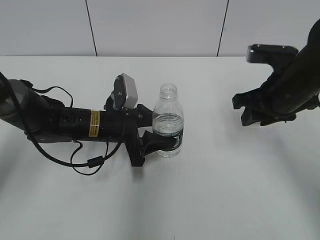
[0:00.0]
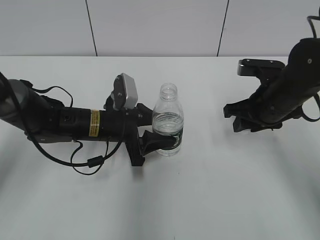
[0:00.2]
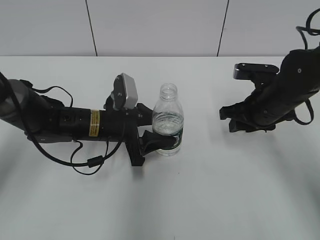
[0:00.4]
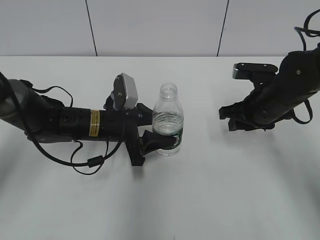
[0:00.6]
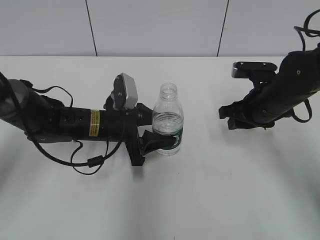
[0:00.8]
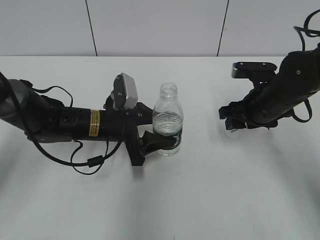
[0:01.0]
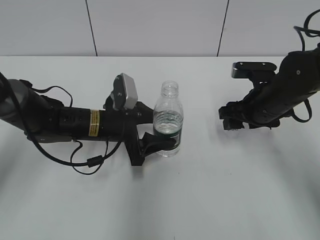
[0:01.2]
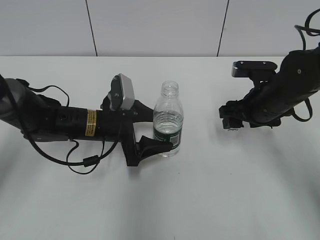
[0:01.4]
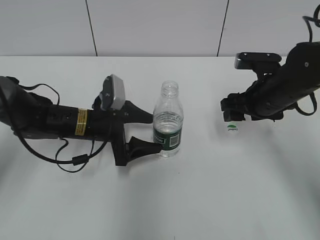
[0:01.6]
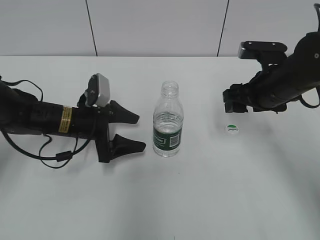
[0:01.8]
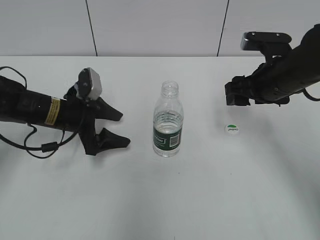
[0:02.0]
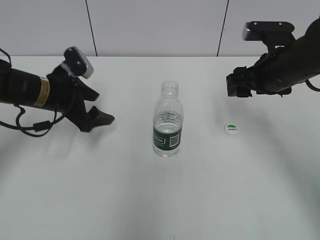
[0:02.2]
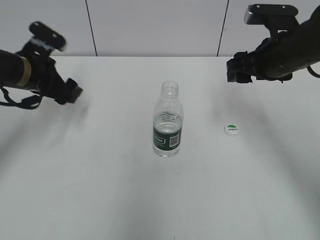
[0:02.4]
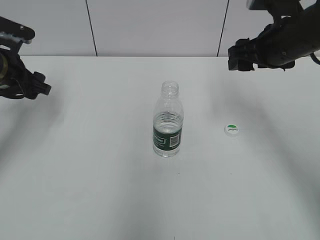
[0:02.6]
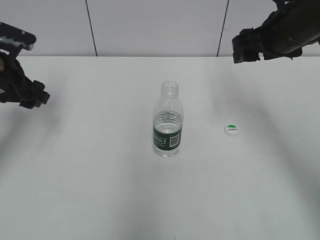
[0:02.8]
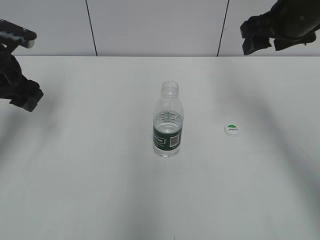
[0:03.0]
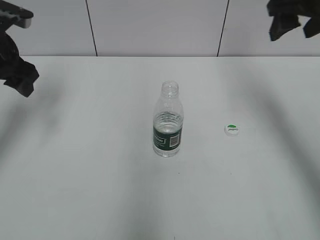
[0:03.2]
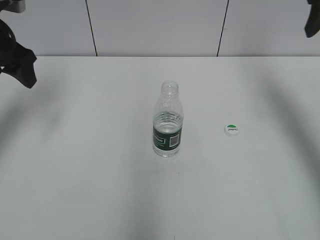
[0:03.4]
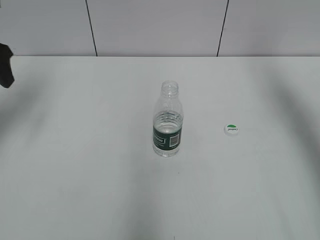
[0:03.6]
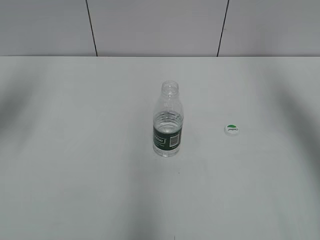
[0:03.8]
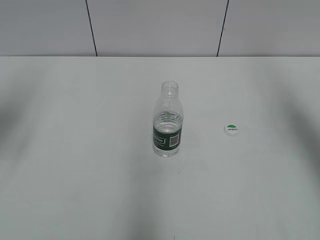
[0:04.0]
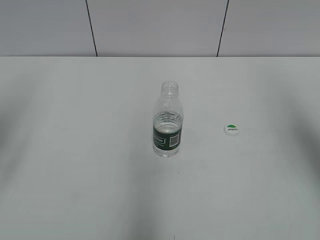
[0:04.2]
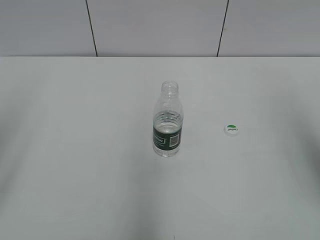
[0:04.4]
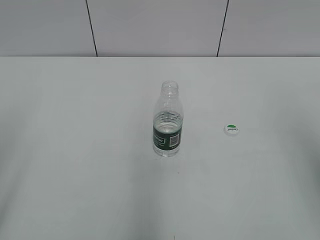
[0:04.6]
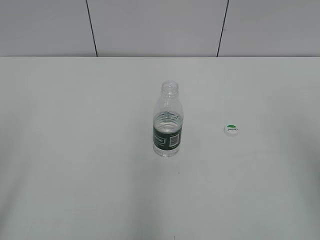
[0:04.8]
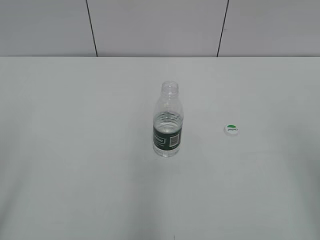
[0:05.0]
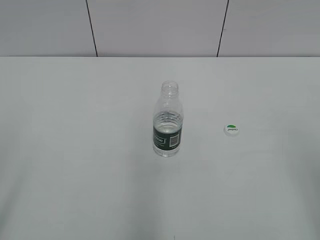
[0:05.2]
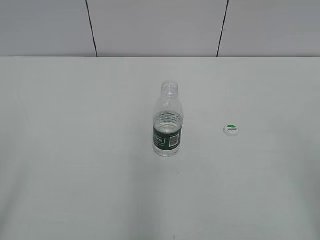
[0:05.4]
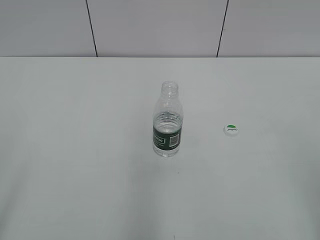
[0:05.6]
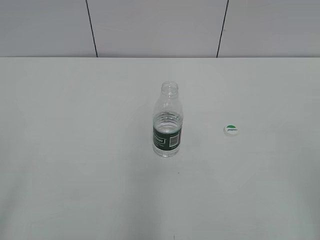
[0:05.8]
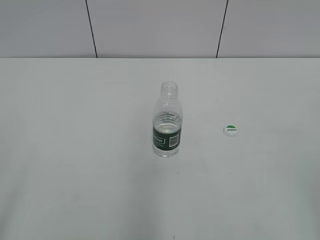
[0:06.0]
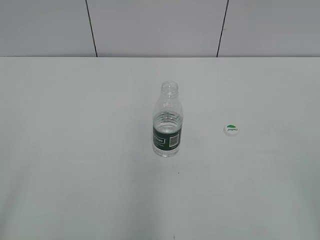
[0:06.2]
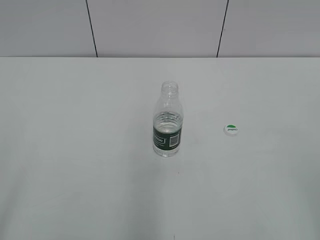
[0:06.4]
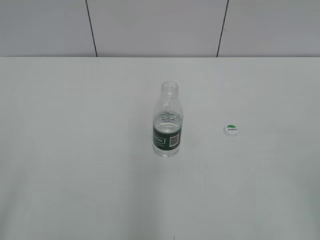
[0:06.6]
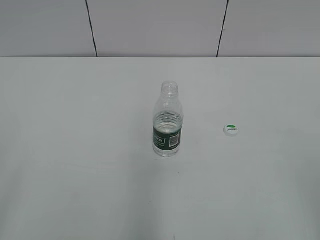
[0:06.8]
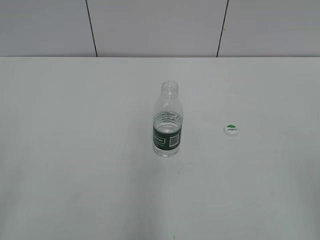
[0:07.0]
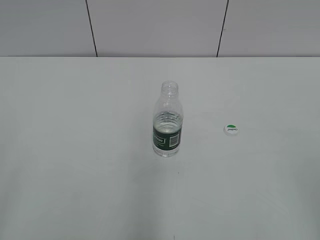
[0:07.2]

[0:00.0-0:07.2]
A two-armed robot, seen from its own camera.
Step, 0:01.0 to 0:01.8: Place the bottle on the table with the left gripper.
0:00.0 to 0:01.4: The right gripper is displaced downward by roughly 5 cm, and opens its fingers. The left gripper opens up.
0:01.4 to 0:02.8: The right gripper shifts about 15 cm upward. The left gripper travels to the left and upward by approximately 20 cm.
0:02.8 to 0:04.4: The left gripper goes some 25 cm backward and upward. Meanwhile the right gripper goes some 20 cm backward, to the right and upward.
0:04.4 to 0:05.8: The right gripper heads backward and downward, covering approximately 20 cm.

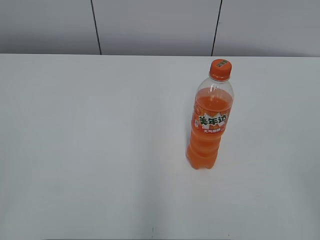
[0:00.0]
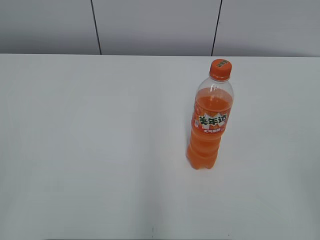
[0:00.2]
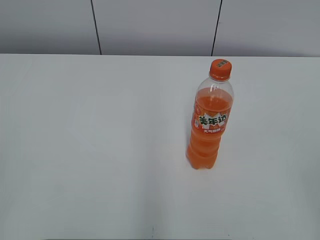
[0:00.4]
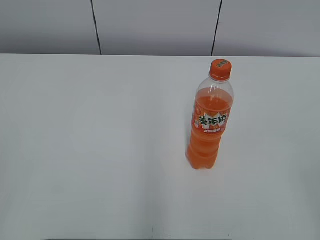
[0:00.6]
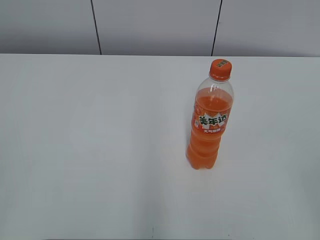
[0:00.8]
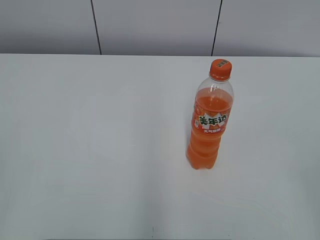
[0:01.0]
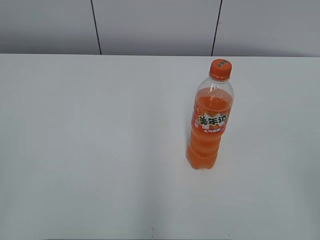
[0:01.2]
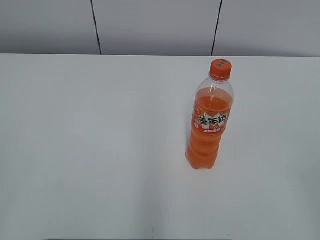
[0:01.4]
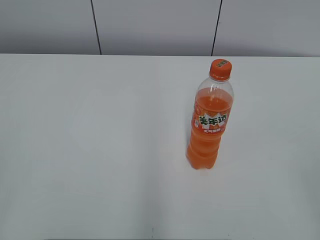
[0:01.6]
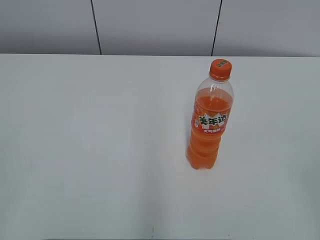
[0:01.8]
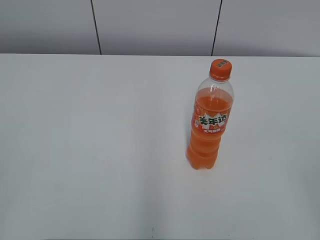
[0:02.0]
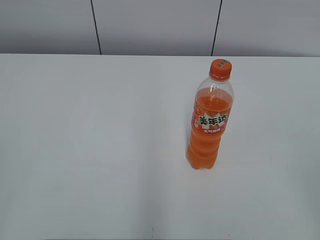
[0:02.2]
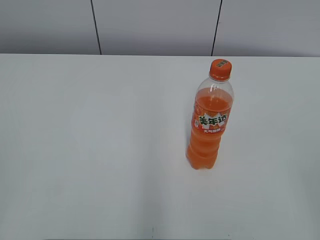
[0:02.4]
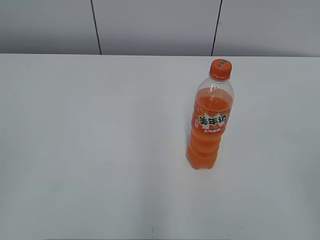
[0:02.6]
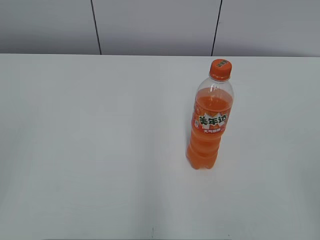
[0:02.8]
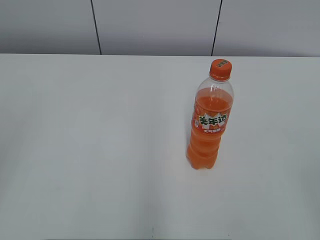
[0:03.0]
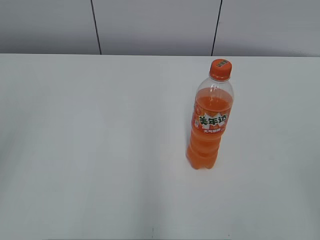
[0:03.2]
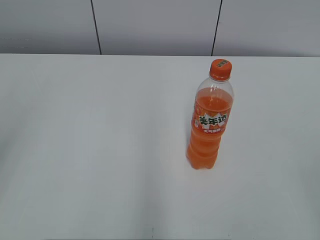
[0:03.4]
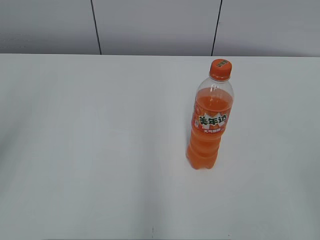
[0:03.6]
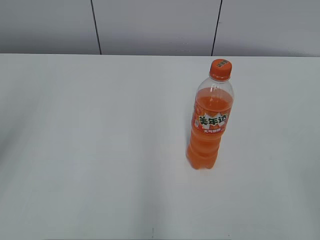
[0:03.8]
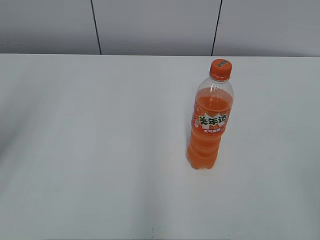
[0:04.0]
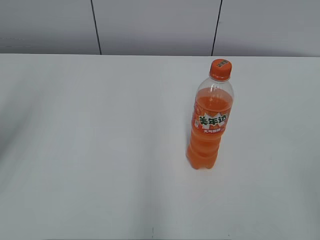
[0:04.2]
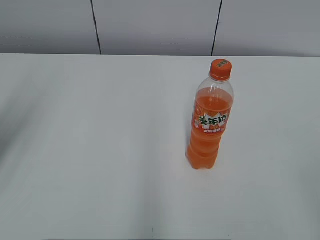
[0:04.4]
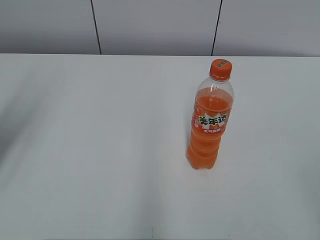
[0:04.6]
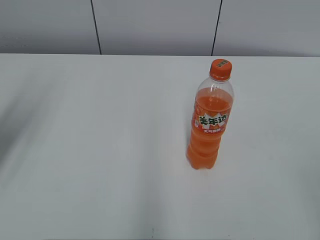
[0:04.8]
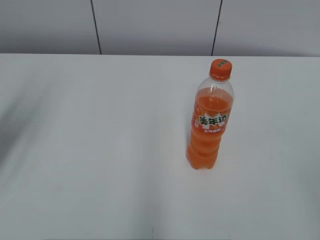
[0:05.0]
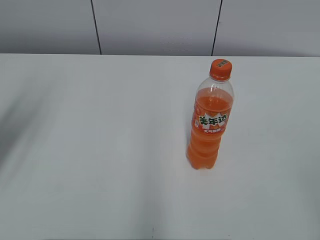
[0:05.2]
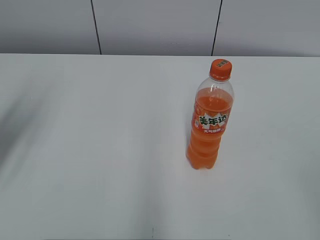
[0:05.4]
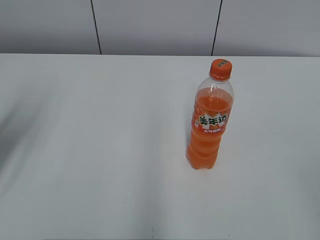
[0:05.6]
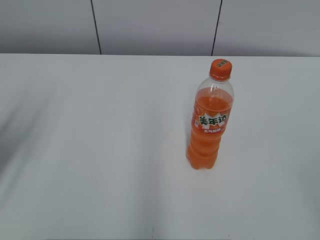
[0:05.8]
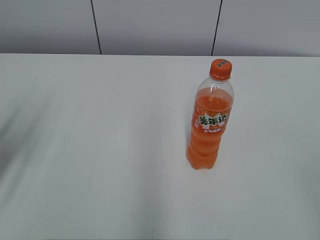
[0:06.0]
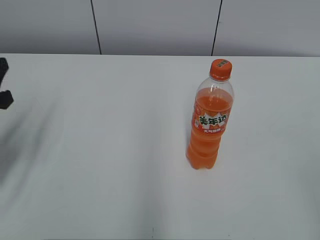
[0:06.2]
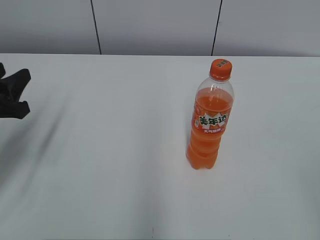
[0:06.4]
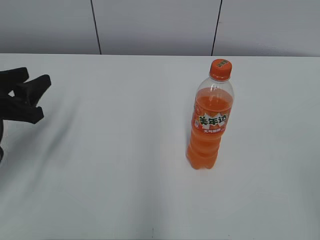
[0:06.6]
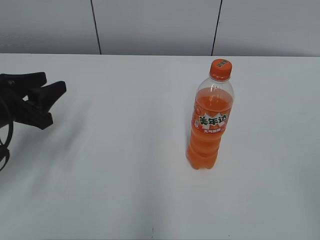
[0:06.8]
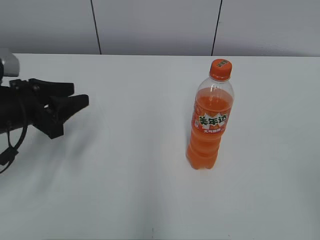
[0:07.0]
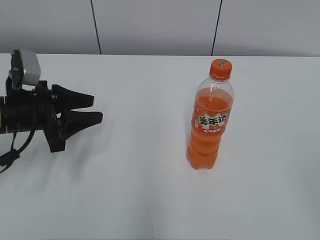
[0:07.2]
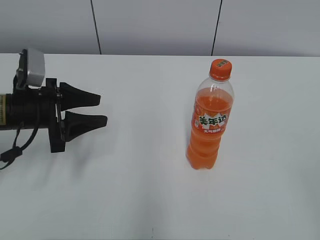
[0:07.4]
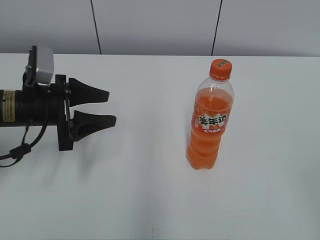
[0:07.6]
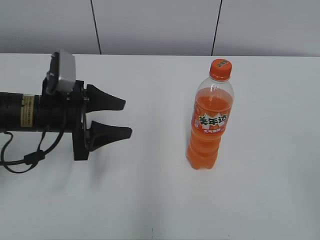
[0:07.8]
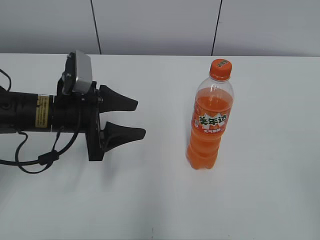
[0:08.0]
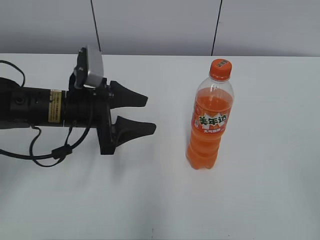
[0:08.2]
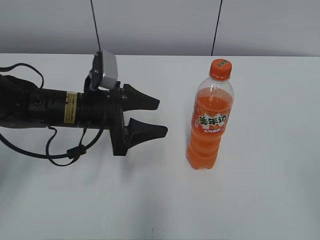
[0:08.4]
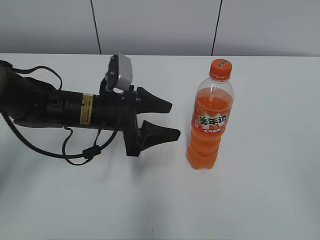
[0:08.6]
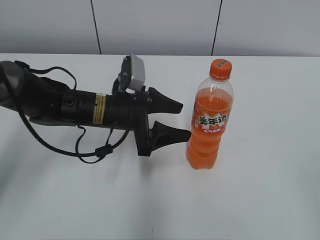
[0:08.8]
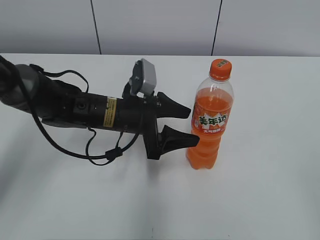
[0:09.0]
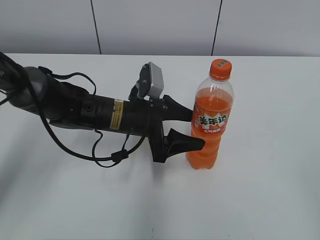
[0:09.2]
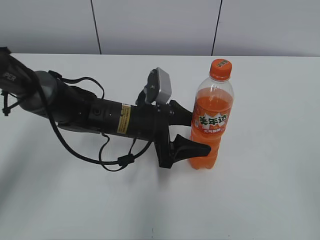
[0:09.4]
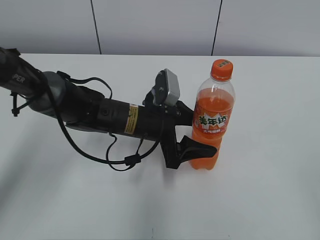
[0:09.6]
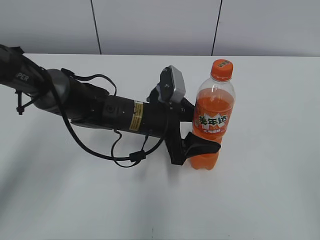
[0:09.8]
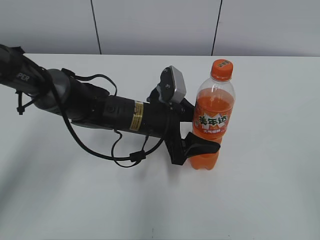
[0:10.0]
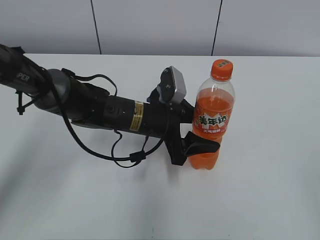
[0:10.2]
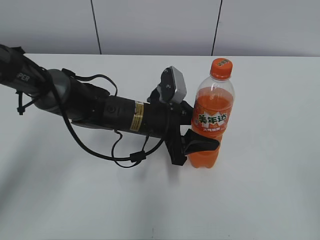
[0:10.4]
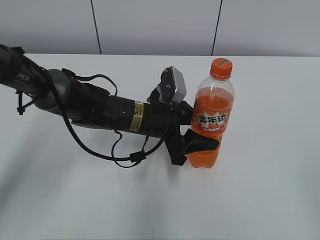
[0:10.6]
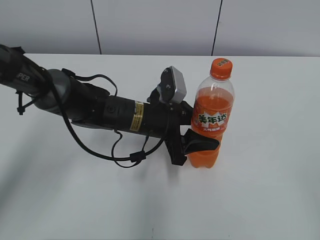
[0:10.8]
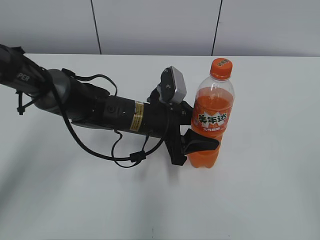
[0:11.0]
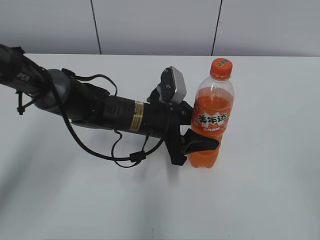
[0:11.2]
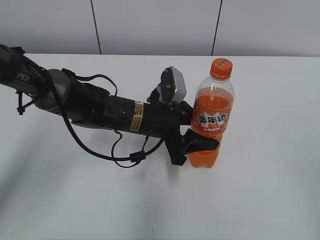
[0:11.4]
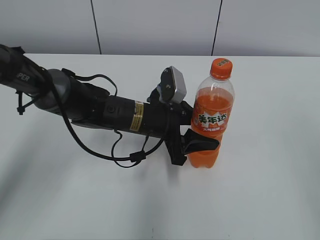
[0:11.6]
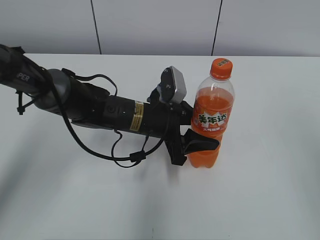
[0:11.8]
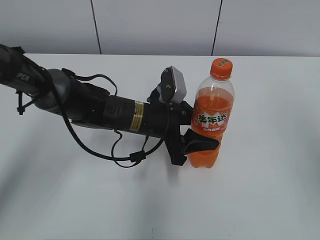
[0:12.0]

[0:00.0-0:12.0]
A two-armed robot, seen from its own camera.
Step, 0:00.0 to 0:10.6: Grab the Mirinda with the left hand.
0:06.0 to 0:07.6: The left gripper shifts some 15 cm to the right, forward and downward.
0:07.6 to 0:09.0: The left gripper travels to the right by about 15 cm.
0:09.0 to 0:10.4: The grippers stay close to where they were, moving slightly.

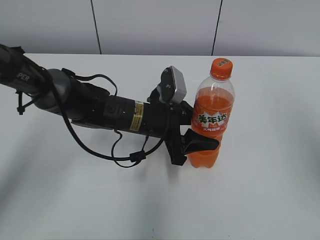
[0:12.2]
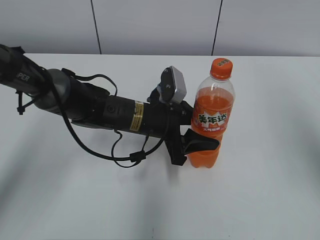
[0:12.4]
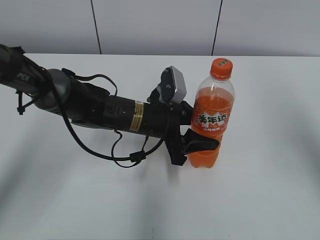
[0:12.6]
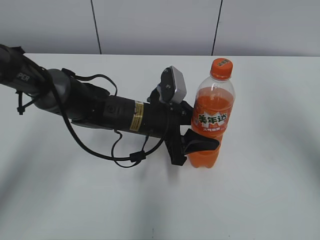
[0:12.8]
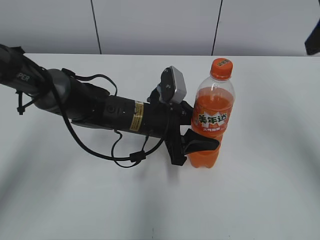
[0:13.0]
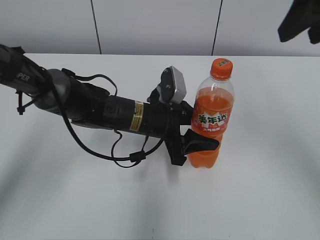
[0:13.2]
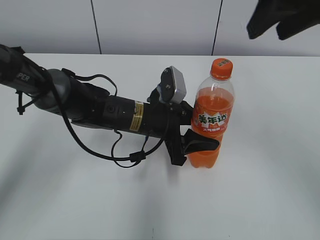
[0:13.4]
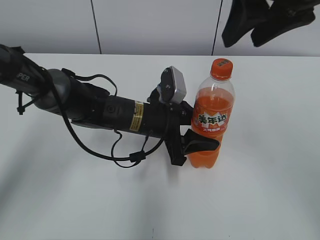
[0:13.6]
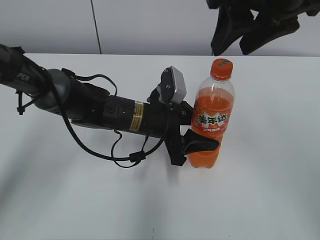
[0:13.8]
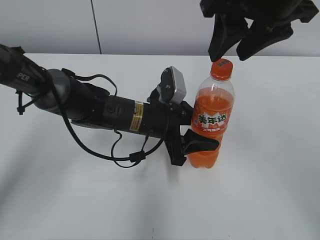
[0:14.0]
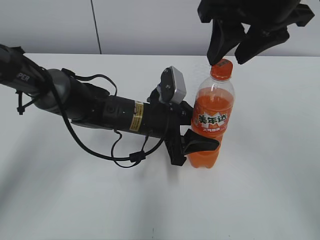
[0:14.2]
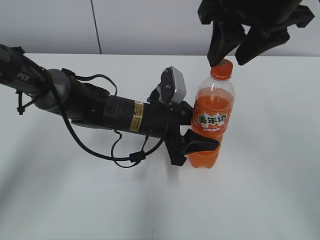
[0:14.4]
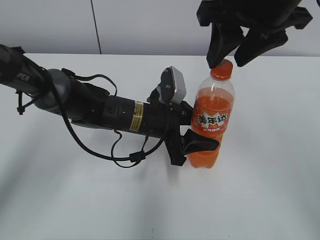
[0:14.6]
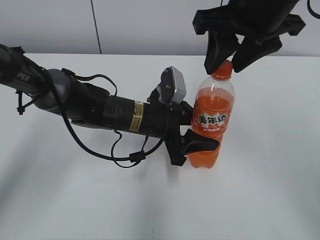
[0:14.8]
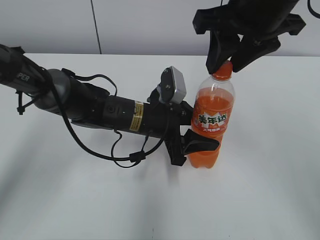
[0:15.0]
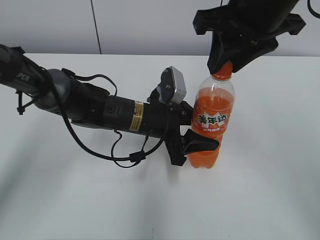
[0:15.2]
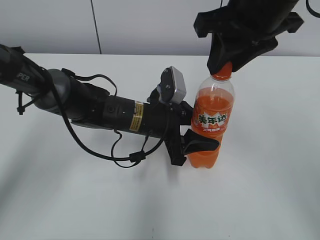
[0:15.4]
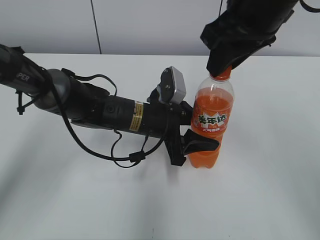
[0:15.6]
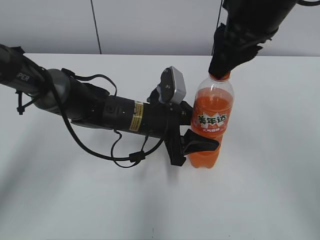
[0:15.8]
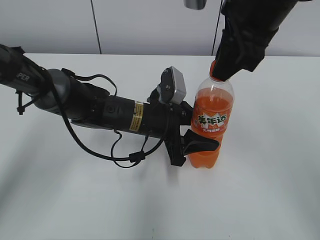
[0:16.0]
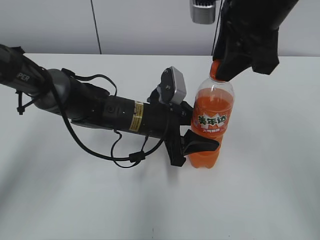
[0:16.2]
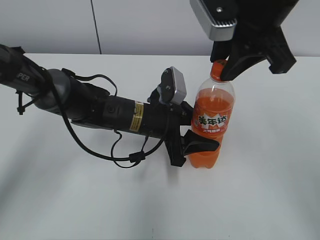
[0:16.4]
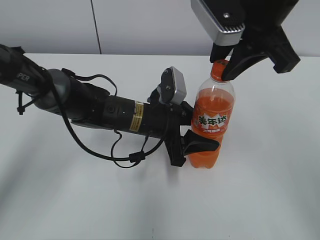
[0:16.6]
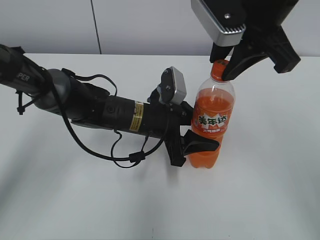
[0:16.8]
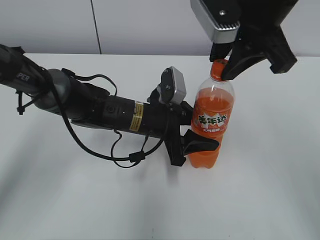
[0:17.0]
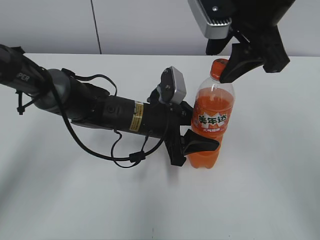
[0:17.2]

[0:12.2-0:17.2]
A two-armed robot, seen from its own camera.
0:12.2 to 0:13.8: The right gripper travels to the left and forward by approximately 20 cm.
0:13.8 to 0:15.6: The right gripper closes.
0:15.6 to 0:17.2: The right gripper opens up.
